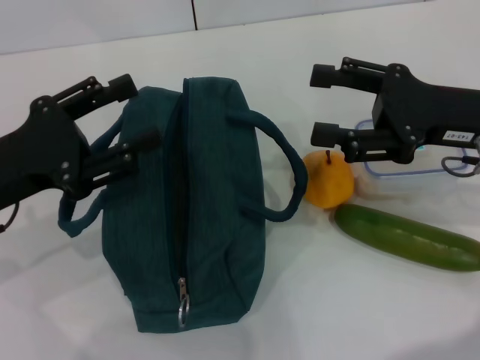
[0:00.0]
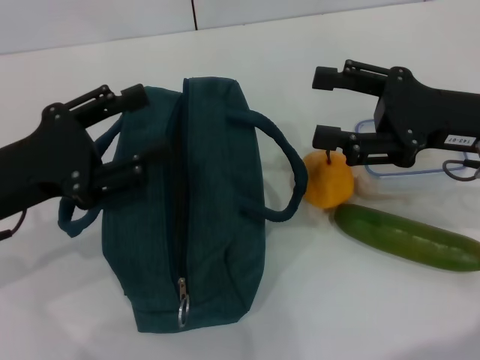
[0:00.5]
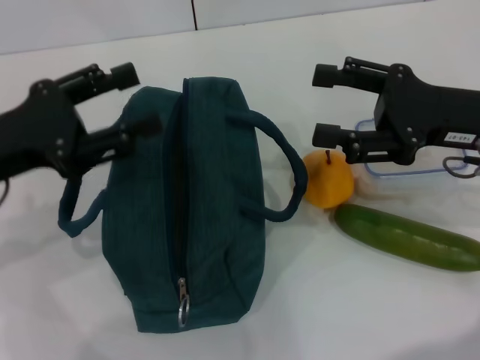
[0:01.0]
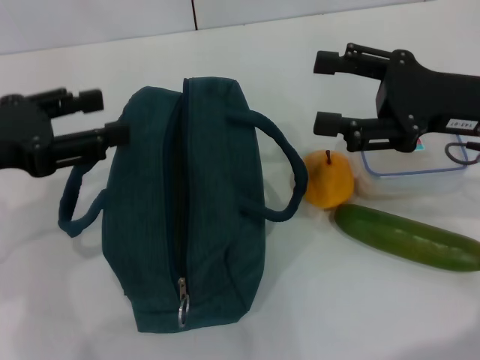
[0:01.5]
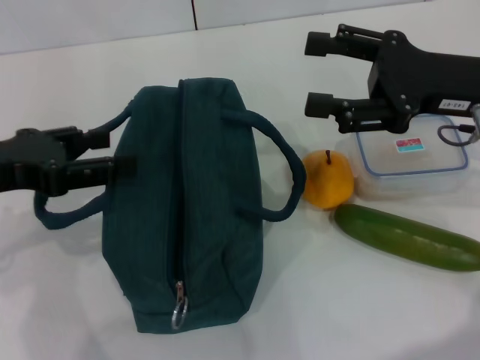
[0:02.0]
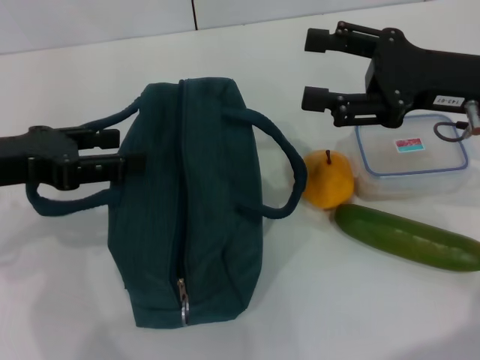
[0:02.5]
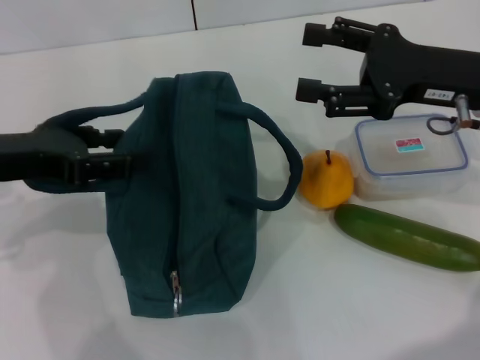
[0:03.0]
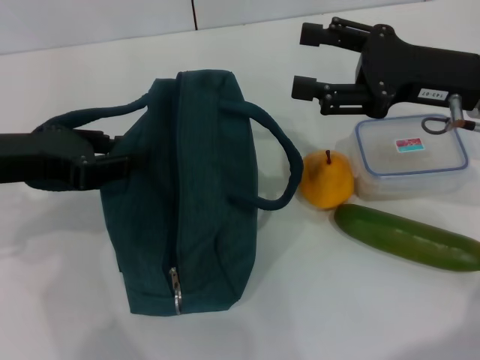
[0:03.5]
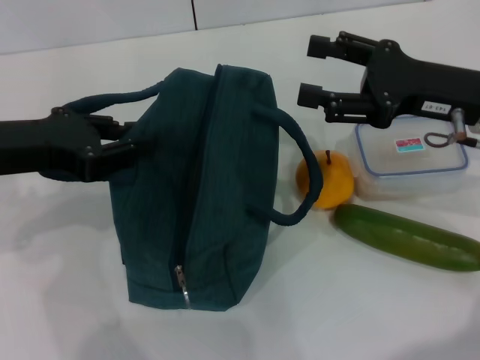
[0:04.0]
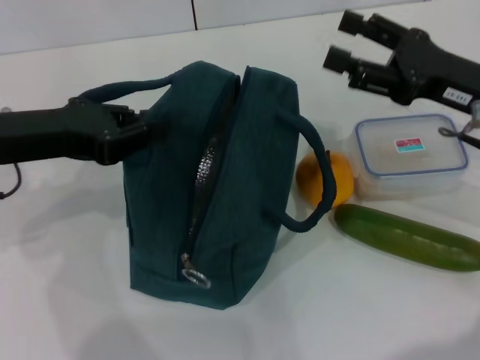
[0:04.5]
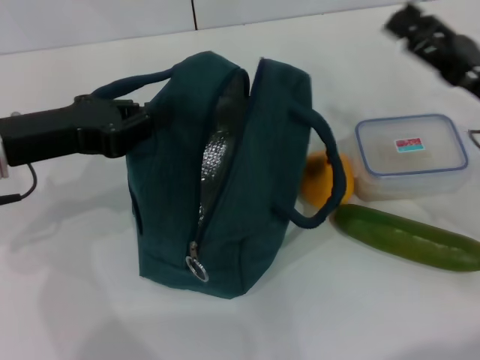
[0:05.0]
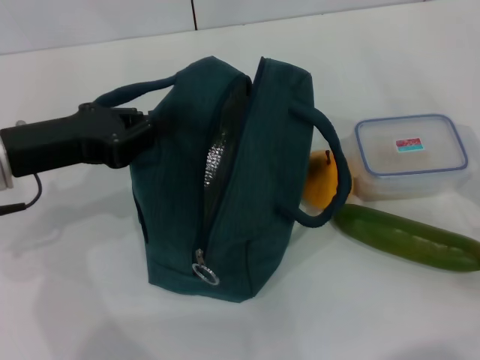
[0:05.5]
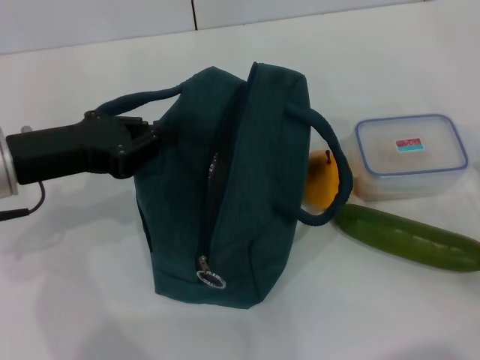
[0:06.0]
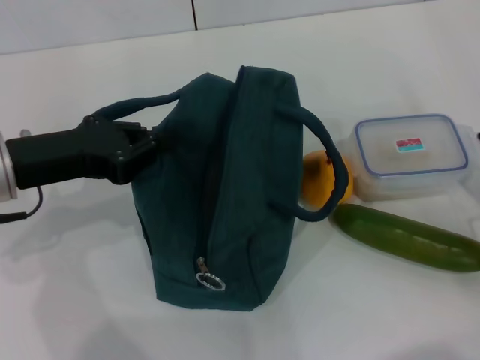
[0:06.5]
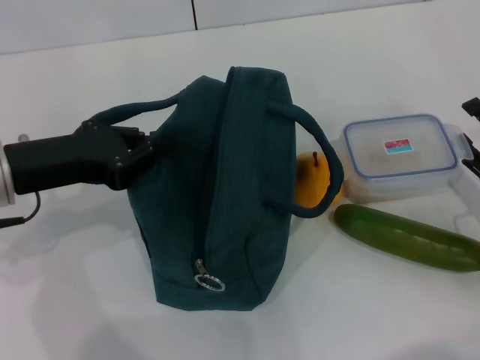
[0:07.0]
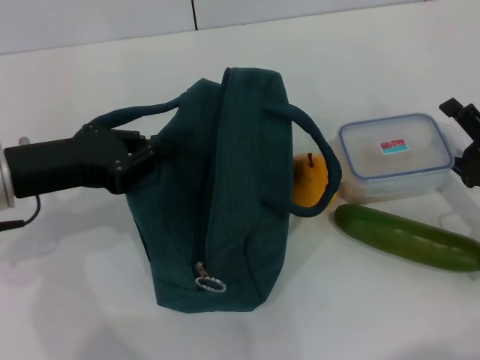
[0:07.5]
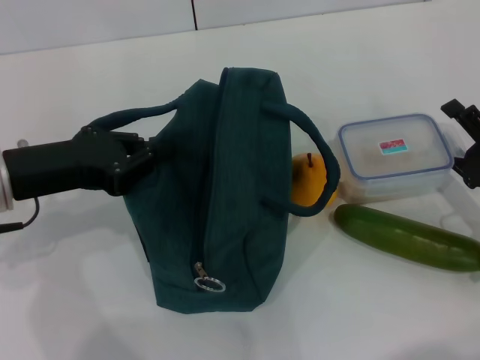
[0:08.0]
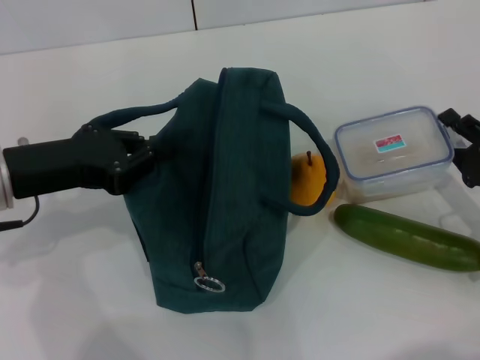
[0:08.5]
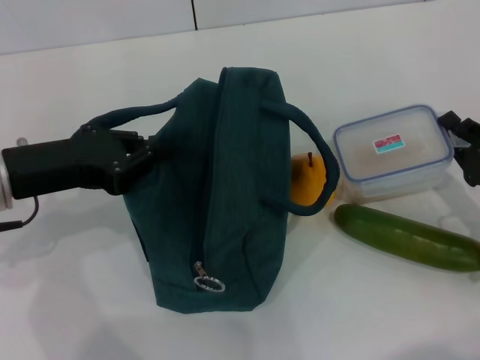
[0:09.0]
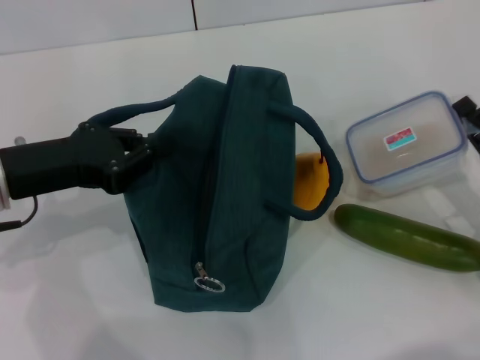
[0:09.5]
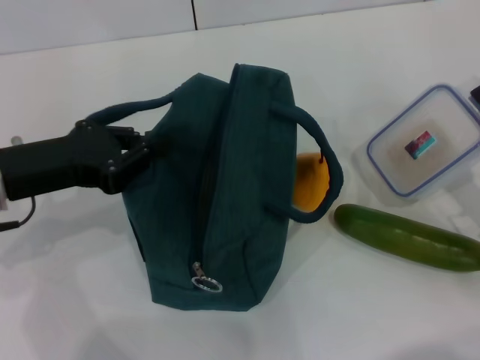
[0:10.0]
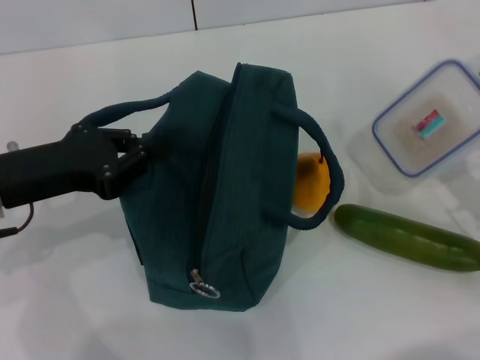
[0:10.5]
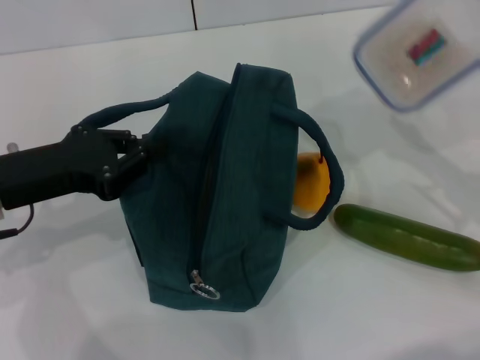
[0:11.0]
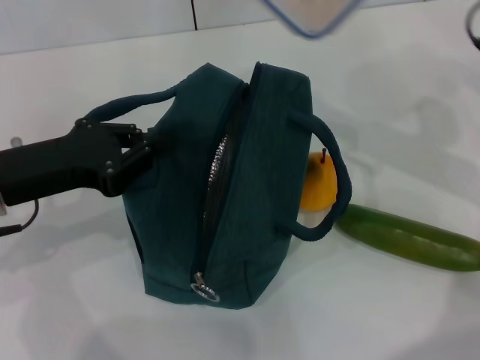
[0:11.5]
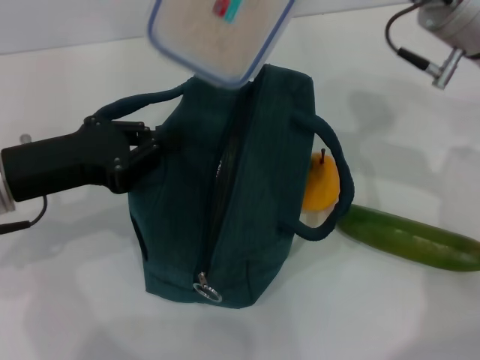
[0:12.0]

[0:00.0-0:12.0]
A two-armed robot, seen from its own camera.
Step, 0:00.0 to 0:04.5: Hold the lunch bag with your left hand.
Step, 0:05.0 to 0:09.0: Pick up the lunch box with your right hand.
0:02.0 to 0:04.0: The left gripper closes.
0:04.0 to 0:06.0: The right gripper is displaced backward, downward and to the right by some 20 cm.
0:06.0 to 0:08.0: The right gripper changes place by some 5 cm.
0:08.0 to 0:10.0: The right gripper closes up.
0:10.0 to 0:12.0: The right gripper heads upward, forward and to the left, covering about 25 cm.

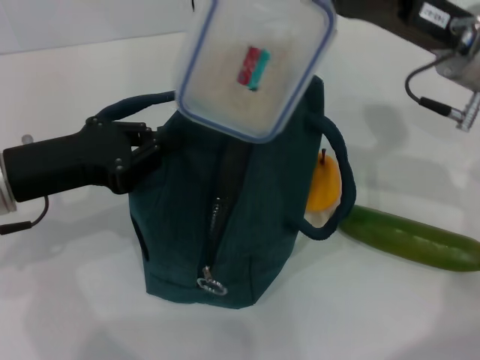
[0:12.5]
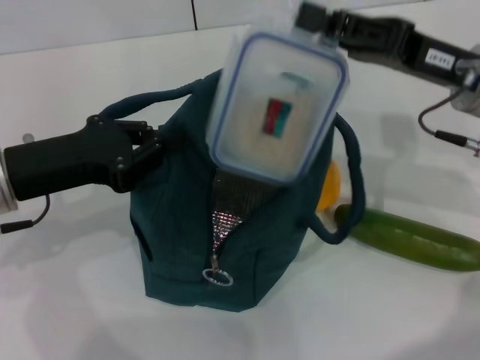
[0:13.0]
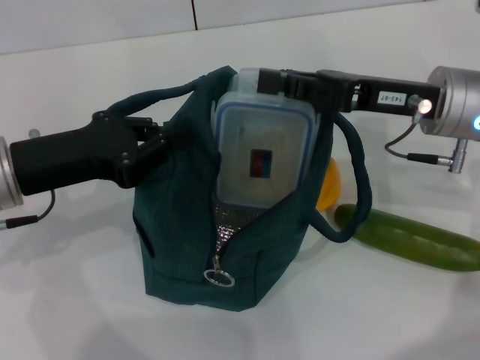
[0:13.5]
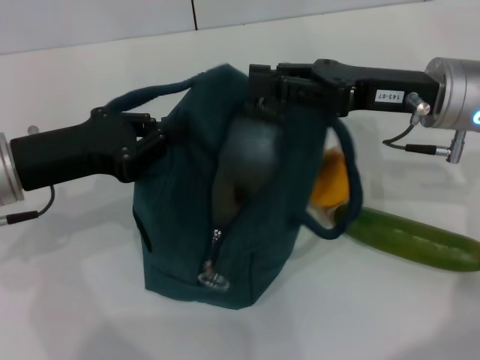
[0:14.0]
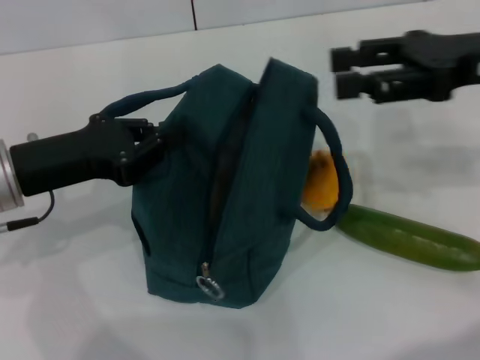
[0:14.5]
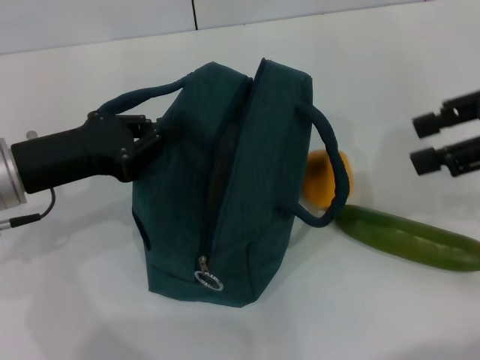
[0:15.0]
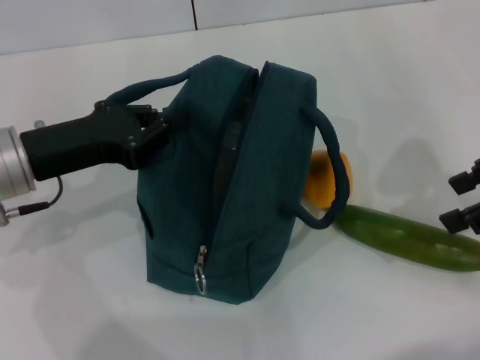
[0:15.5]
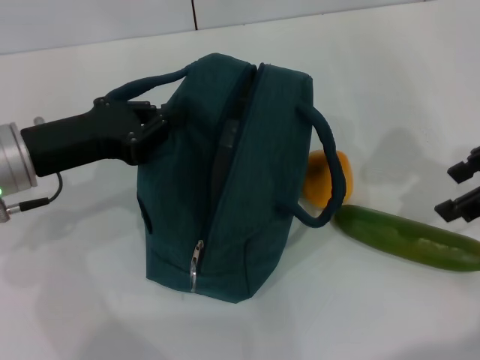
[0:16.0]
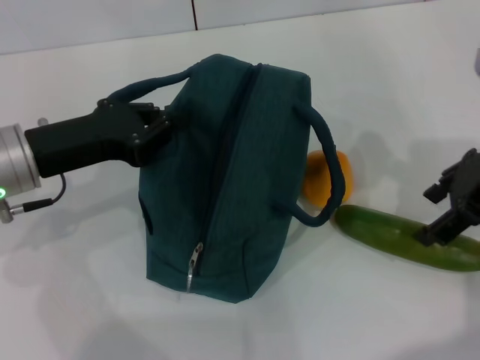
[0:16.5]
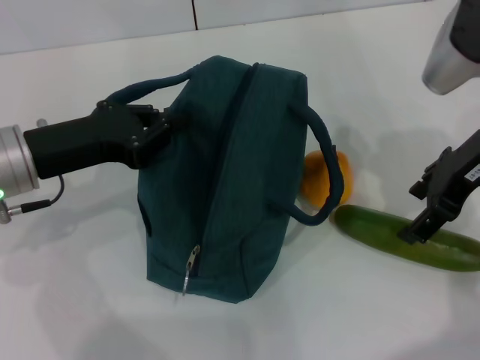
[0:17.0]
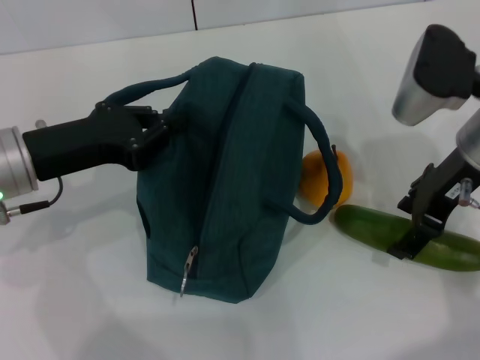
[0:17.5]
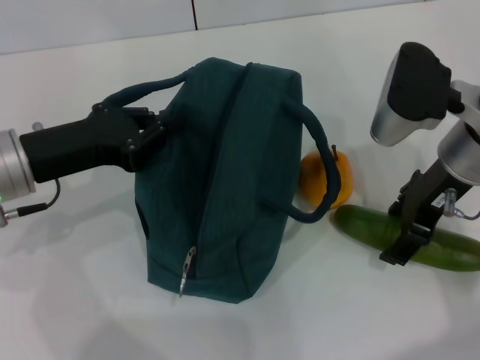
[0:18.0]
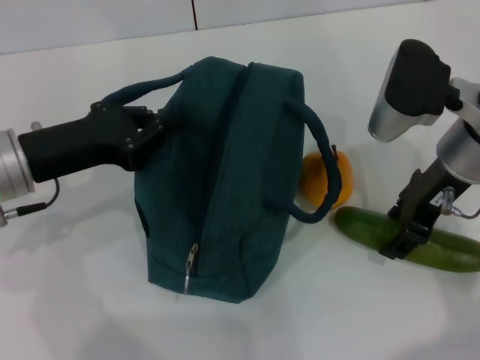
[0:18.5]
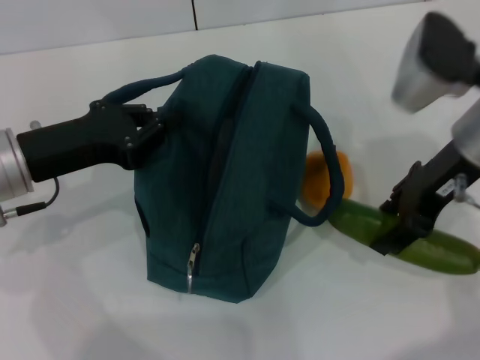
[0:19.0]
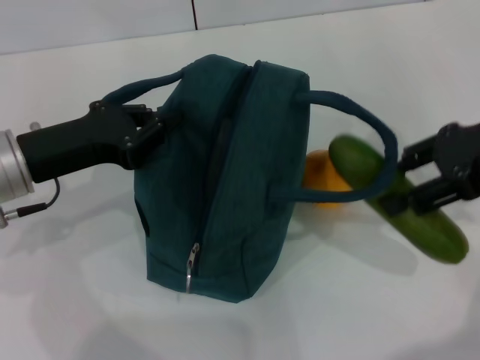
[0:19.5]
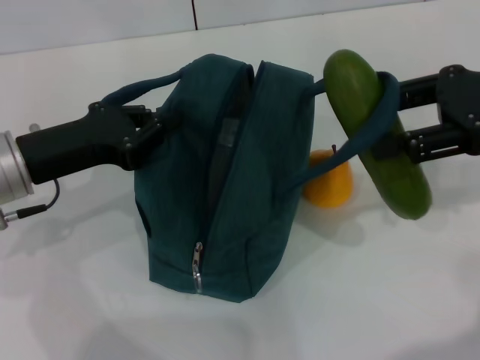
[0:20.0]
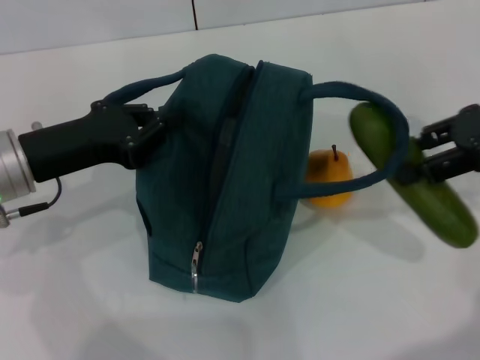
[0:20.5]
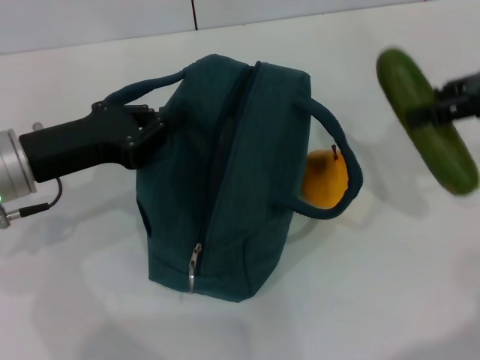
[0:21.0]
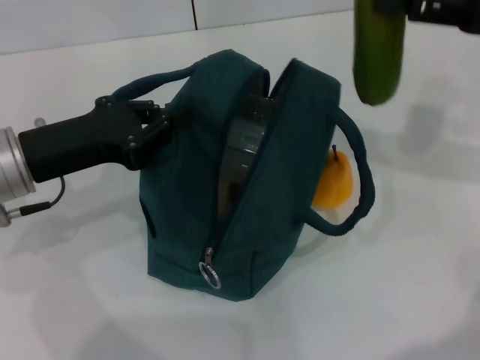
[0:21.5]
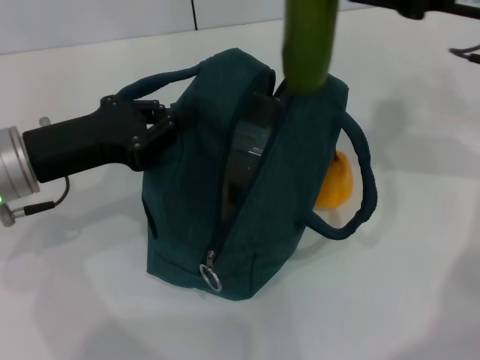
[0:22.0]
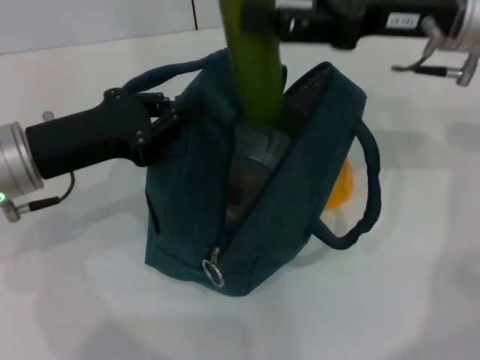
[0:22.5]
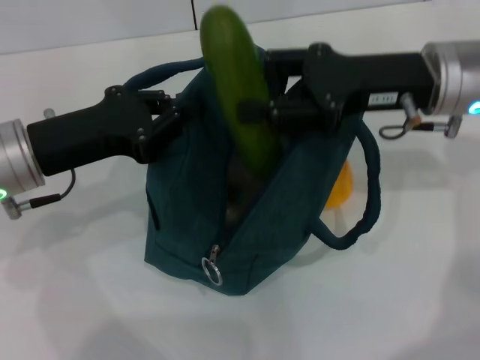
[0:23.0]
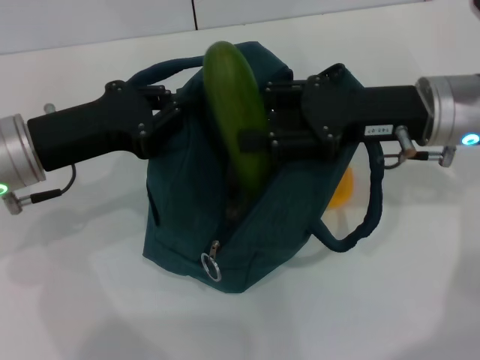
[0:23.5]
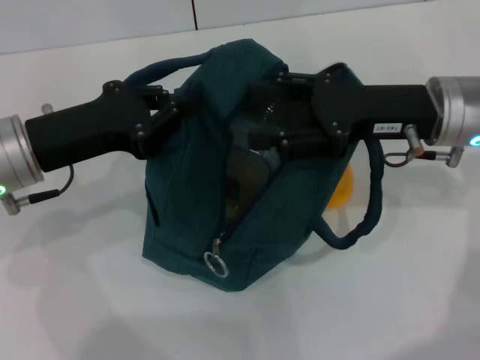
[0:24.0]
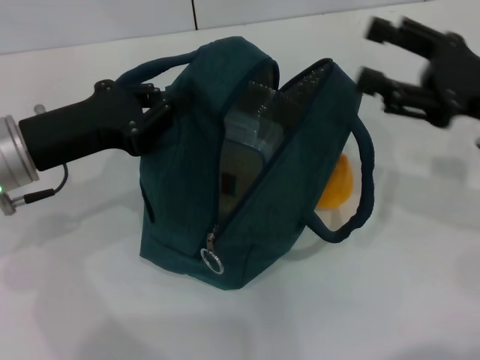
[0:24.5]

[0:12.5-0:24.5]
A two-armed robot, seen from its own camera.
Step, 0:14.5 to 0:18.5: Pick up the cucumber with your right hand.
Step, 0:19.0 to 0:23.5: Put the cucumber into the lunch bag with your right hand.
0:12.5 to 0:14.5: The right gripper goes some 5 cm to the right, and opens up.
0:14.5 to 0:16.5: The right gripper opens up.
0:16.5 to 0:18.5: The right gripper goes approximately 5 cm to the left.
0:18.5 to 0:20.5: The right gripper shifts approximately 10 cm to the right and upward.
0:20.5 to 0:22.5: The right gripper goes approximately 10 cm to the left and forward.
0:22.5 to 0:24.5: The right gripper heads to the right, backward and downward, covering roughly 15 cm.

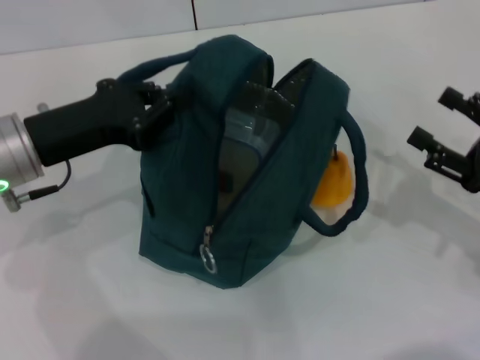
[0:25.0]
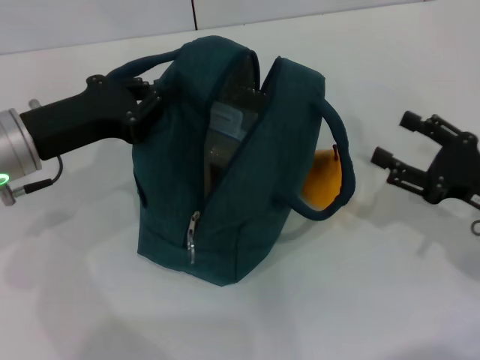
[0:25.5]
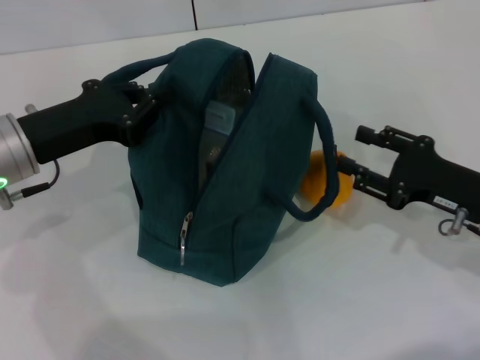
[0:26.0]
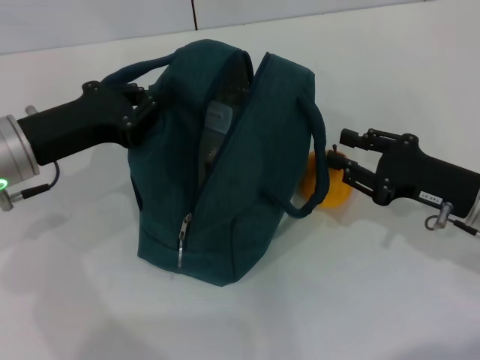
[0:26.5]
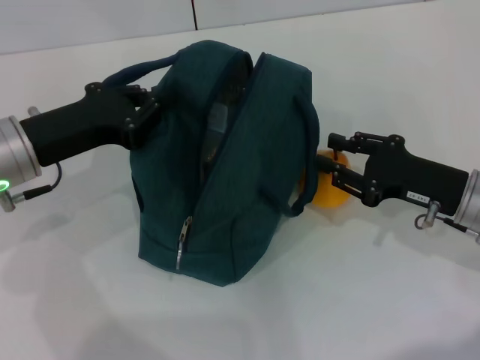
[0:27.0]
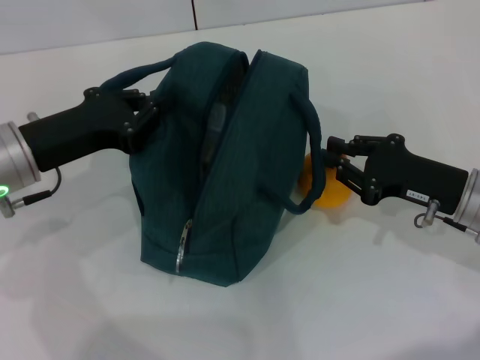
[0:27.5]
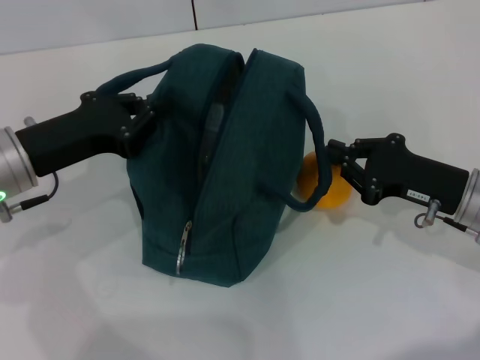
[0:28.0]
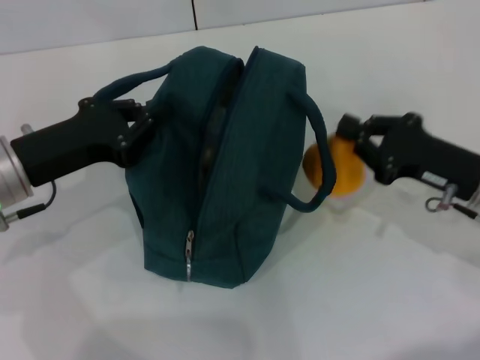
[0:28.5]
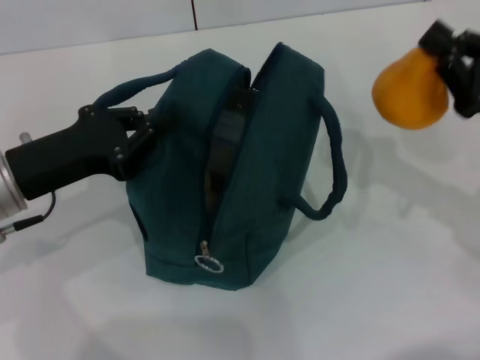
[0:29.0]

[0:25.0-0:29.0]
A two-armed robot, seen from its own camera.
Step, 0:25.0 to 0:28.0: Grab the pear with your right hand.
0:25.0 to 0:27.0: The right gripper shifts about 10 cm to the left and forward, and closes up.
0:27.0 to 0:29.0: The right gripper heads upward, covering approximately 5 cm, and closes its fingers.
